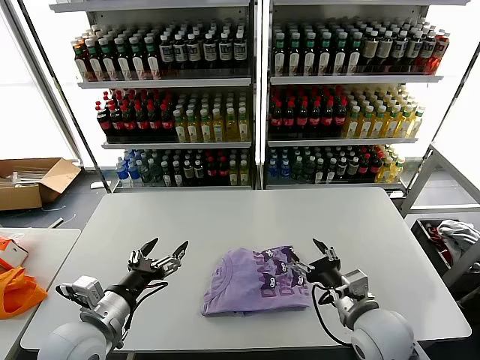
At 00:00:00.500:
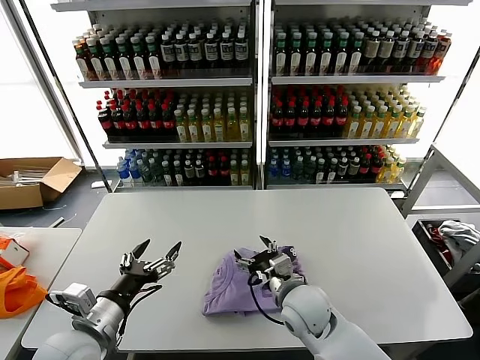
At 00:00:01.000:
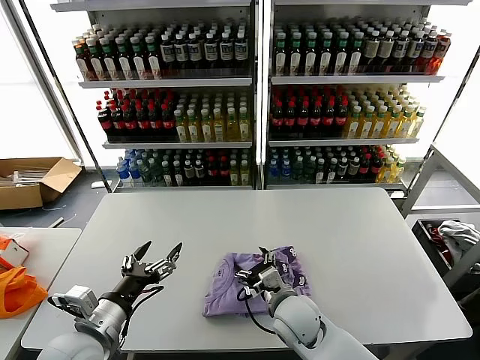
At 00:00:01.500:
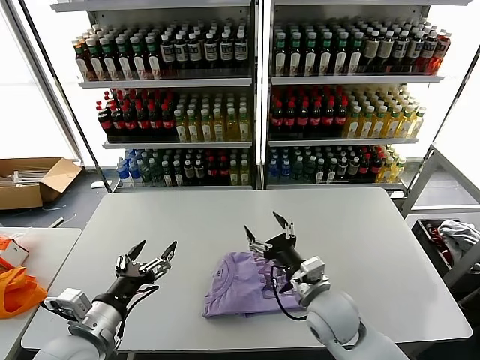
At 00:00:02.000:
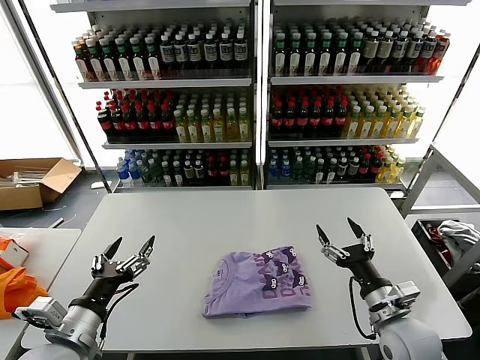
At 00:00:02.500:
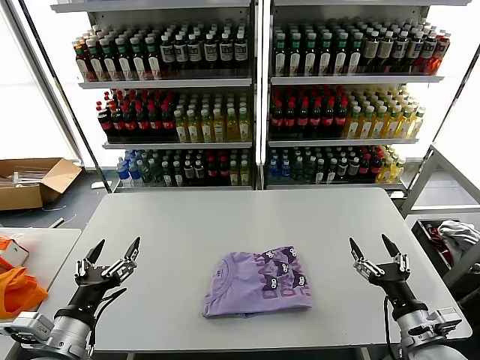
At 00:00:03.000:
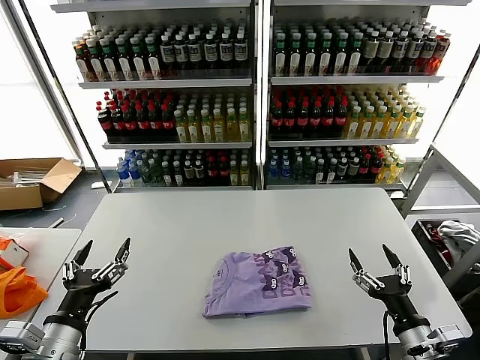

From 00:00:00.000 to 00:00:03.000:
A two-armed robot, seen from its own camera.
Task of the whole recording: fold and organize the clothes.
From 00:00:00.000 to 00:00:01.500: The right gripper travels to the left and forward by roughly 10 cm.
From 00:00:01.500 to 00:00:03.000: The right gripper shifts some 25 cm to the right and backward. Meanwhile the left gripper ends up approximately 5 cm from where it was.
